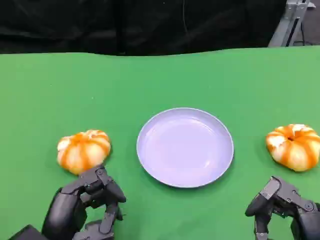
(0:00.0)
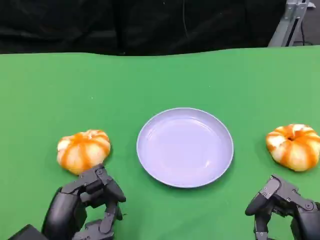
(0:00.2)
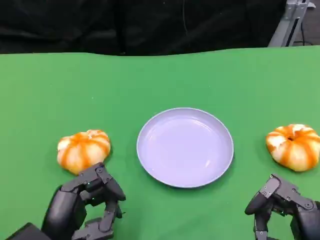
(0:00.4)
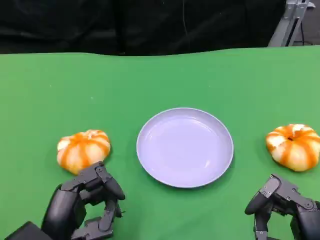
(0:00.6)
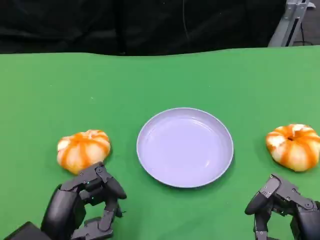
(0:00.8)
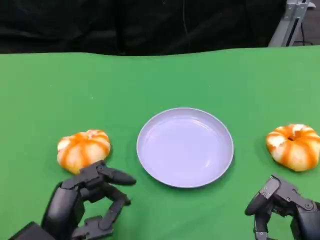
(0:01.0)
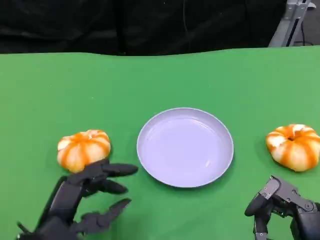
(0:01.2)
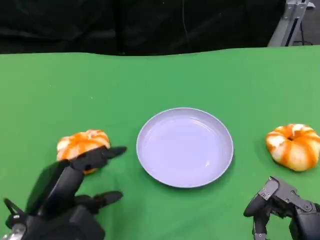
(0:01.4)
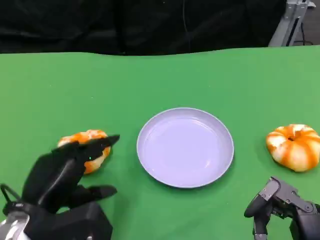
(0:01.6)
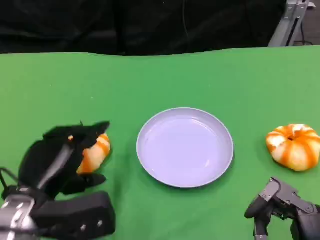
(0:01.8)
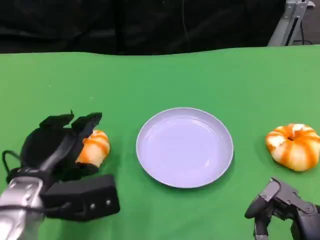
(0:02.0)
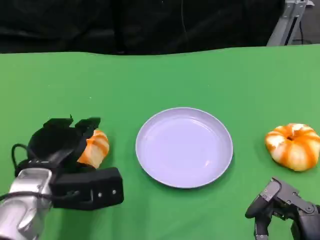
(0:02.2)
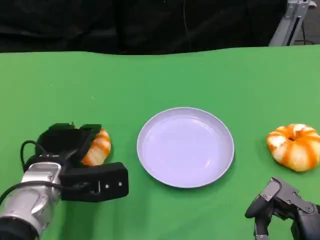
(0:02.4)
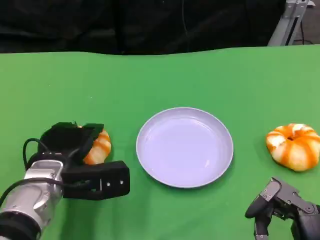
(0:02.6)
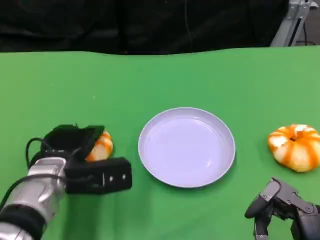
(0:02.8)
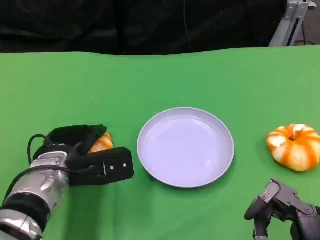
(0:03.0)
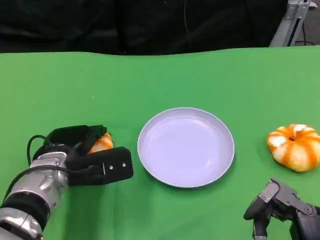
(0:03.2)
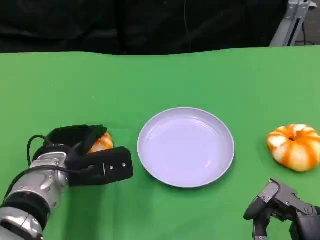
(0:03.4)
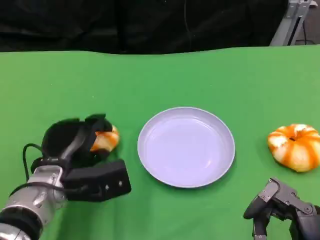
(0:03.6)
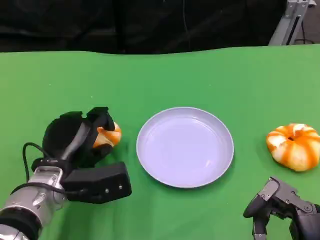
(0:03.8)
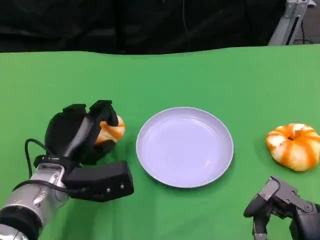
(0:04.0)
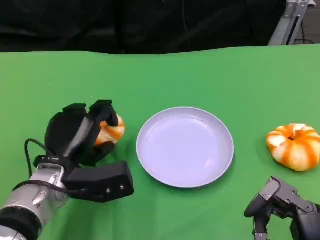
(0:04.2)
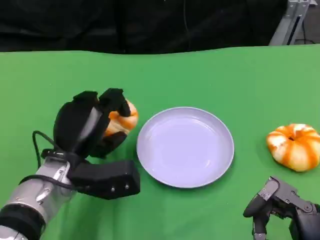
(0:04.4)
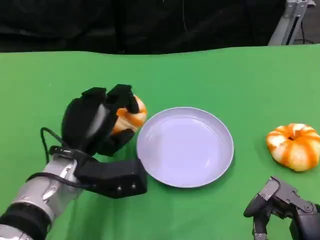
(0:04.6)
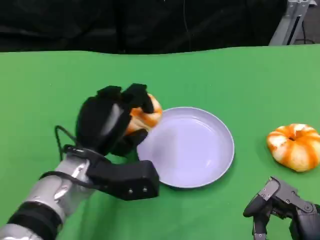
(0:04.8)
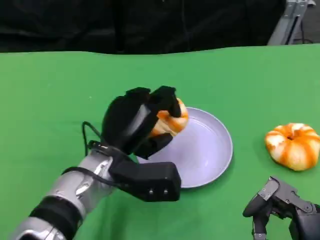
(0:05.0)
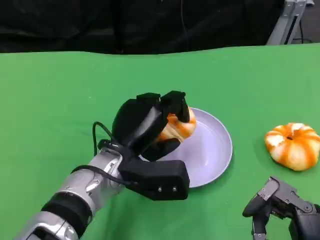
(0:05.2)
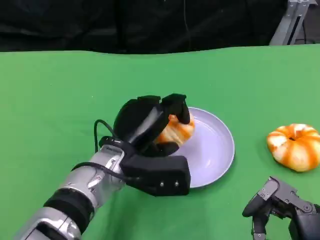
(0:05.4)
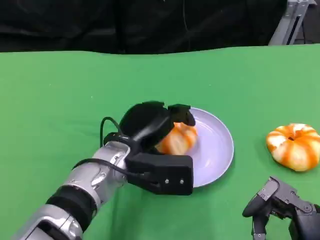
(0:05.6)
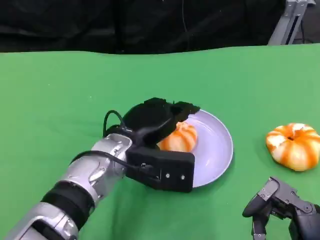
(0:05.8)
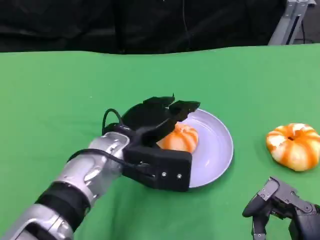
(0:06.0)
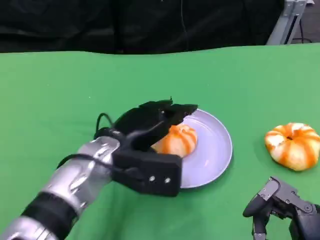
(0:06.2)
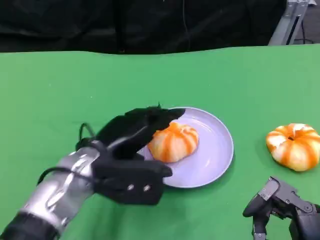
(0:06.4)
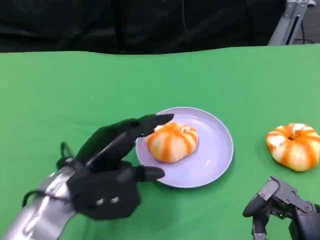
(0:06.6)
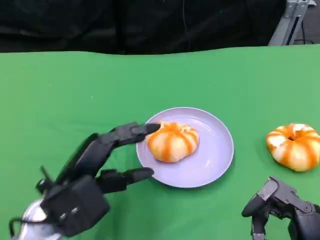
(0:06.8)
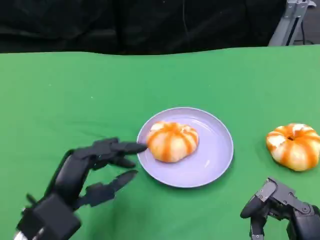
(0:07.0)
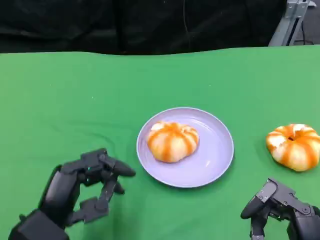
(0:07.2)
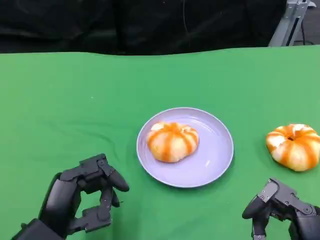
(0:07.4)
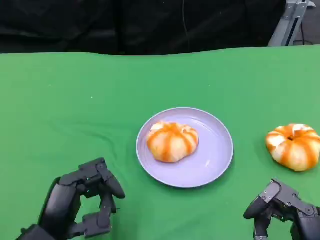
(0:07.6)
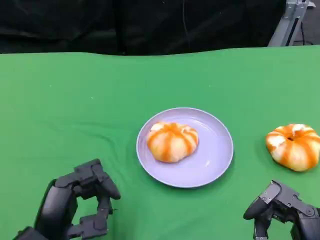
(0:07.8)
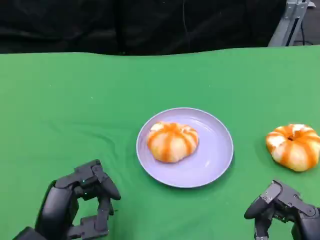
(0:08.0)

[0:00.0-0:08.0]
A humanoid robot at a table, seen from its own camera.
Task of the whole recording: Grasp the bread from the table and place it into the plate.
0:00.0 to 0:01.6: The left hand ends up some 5 cm from where it was.
0:01.6 to 0:03.2: The left hand moves forward, some 10 cm.
0:03.2 to 0:04.8: The left hand heads to the right, covering roughly 5 cm.
0:06.4 to 0:08.0: The left hand shifts approximately 15 cm backward, to the left and downward.

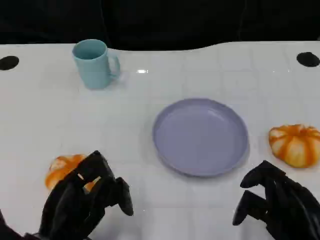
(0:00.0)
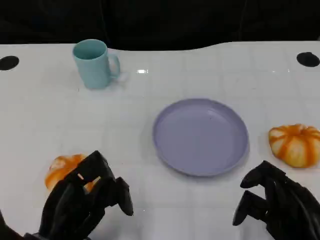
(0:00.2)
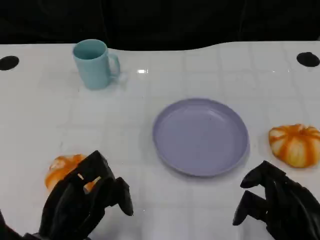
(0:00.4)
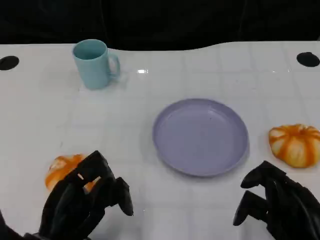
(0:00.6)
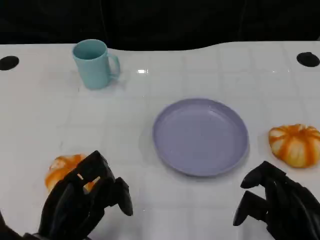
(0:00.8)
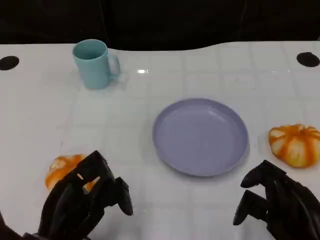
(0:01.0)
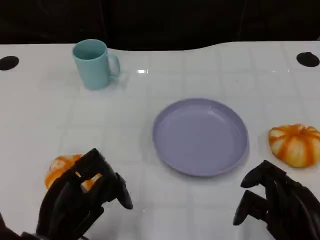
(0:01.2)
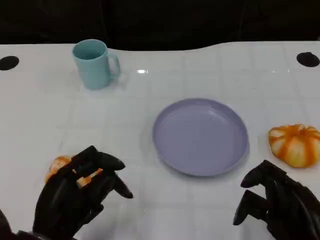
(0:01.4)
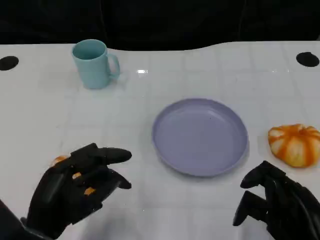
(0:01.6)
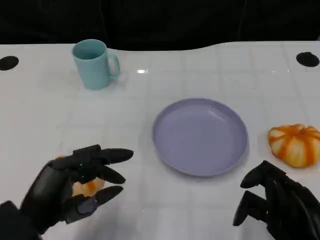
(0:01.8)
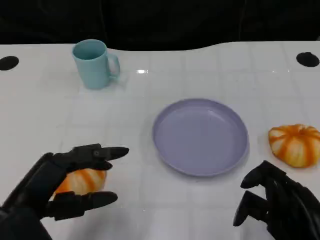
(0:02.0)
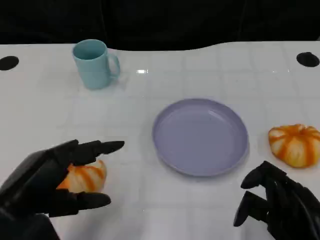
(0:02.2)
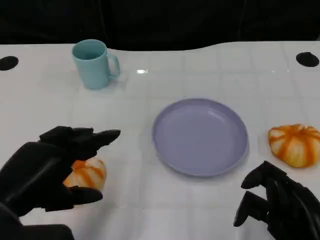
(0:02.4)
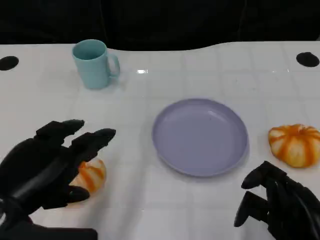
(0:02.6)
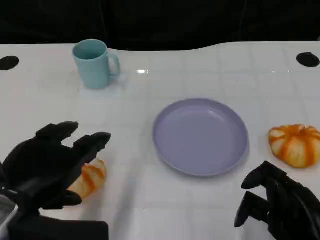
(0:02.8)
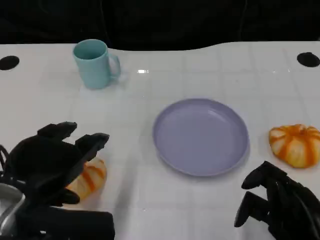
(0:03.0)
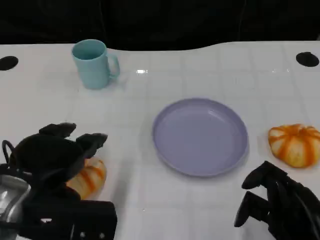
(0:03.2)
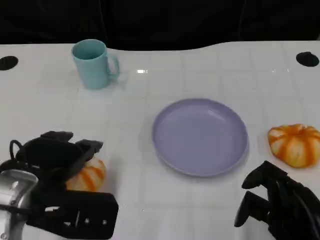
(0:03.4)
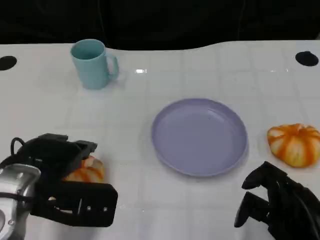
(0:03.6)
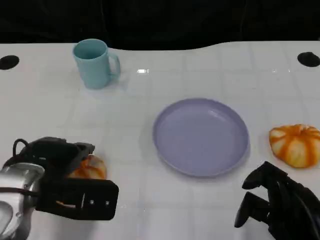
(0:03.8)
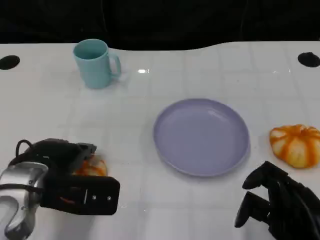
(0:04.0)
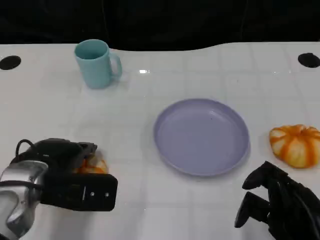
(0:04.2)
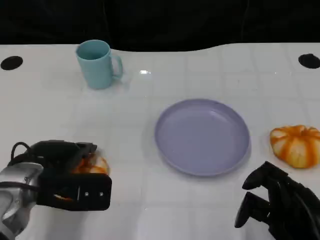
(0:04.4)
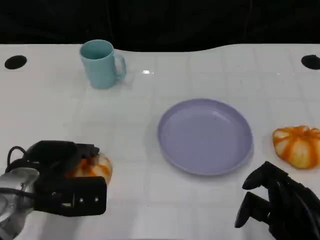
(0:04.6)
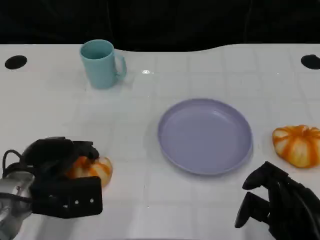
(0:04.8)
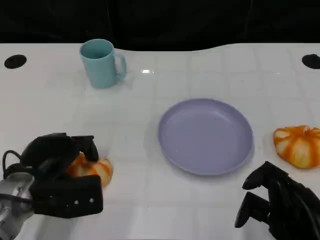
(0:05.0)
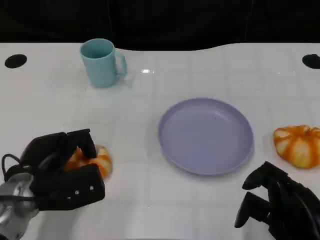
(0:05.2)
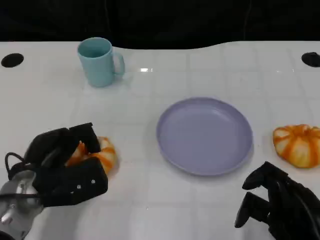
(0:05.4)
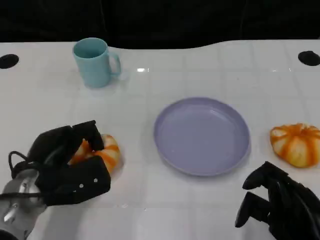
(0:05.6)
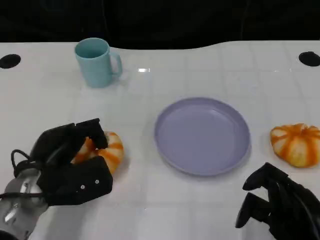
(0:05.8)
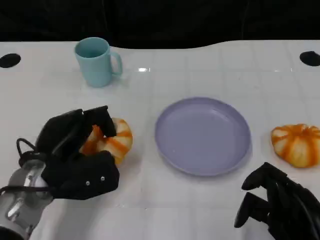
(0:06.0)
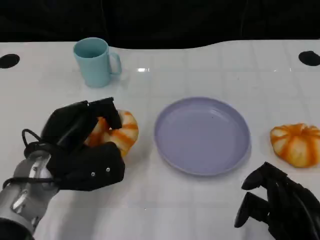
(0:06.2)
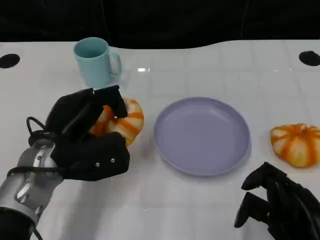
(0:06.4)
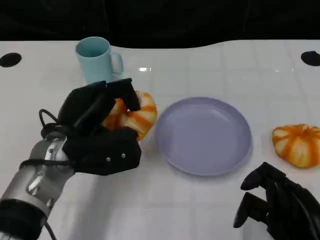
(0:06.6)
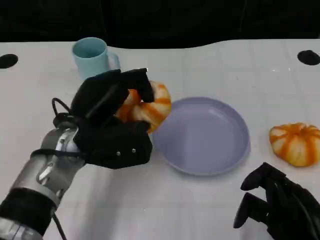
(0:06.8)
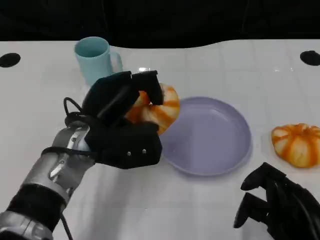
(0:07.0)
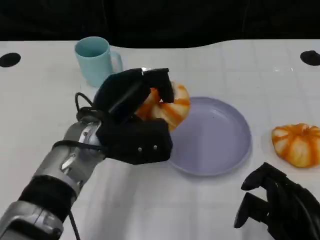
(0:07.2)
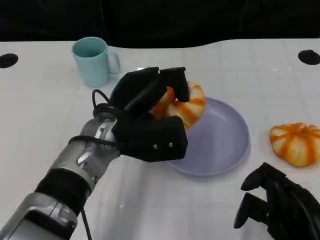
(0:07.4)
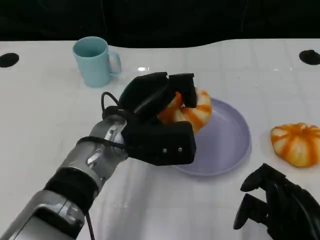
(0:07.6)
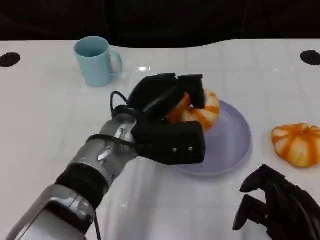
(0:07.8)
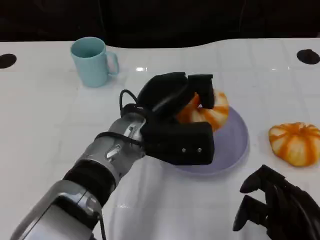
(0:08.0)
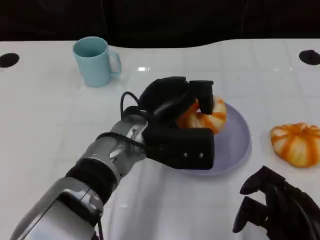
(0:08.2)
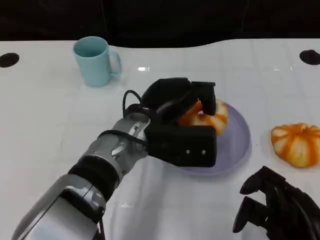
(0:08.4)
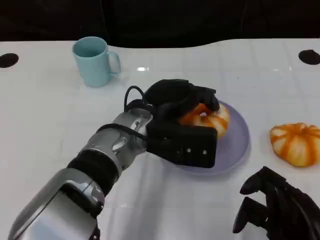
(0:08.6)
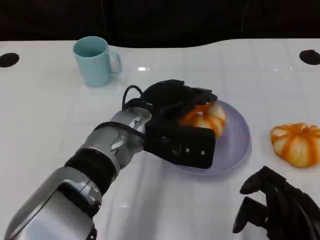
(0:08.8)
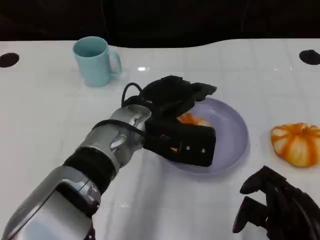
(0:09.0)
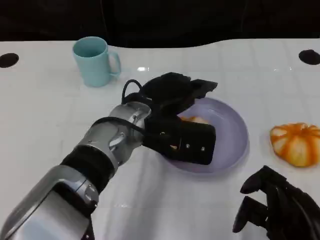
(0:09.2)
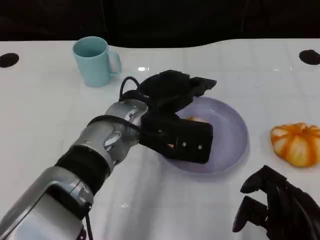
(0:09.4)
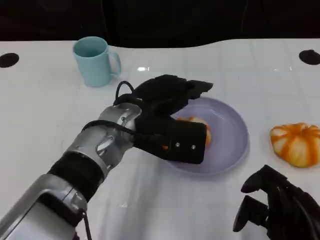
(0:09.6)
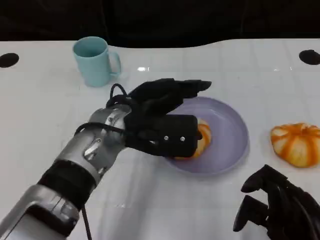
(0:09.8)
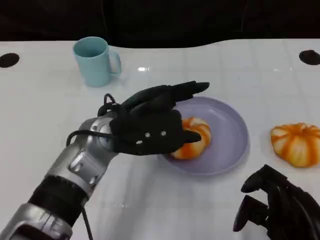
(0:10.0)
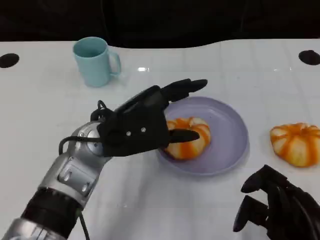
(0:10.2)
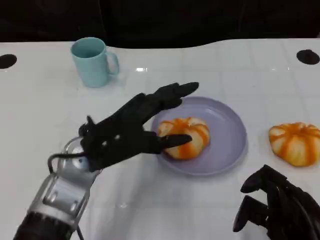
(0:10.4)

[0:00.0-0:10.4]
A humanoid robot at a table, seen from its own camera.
Task of the whole recording: Grasp the bread from the table and place it into the plate.
0:00.0 to 0:01.4: The hands move only a little.
0:01.4 to 0:03.0: The left hand moves upward, about 10 cm.
0:03.0 to 0:04.4: The left hand travels downward and forward by about 10 cm.
0:06.0 to 0:07.4: The left hand is displaced to the right by some 10 cm.
0:09.0 to 0:10.4: The left hand moves to the left, approximately 10 cm.

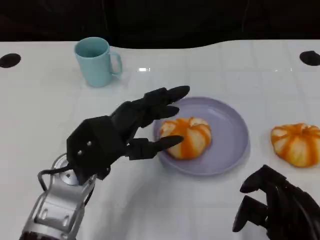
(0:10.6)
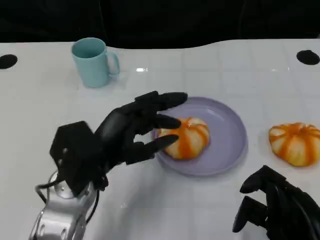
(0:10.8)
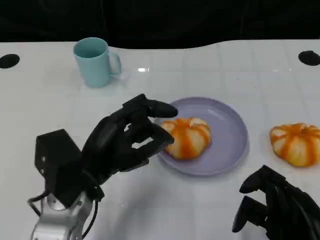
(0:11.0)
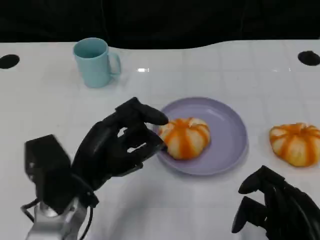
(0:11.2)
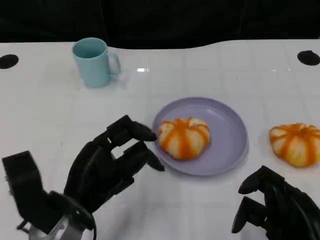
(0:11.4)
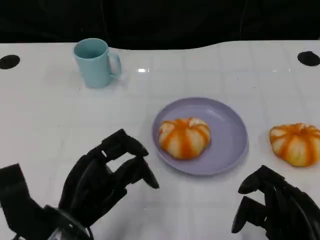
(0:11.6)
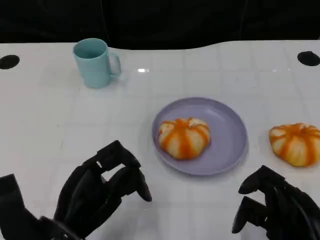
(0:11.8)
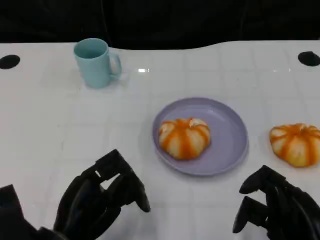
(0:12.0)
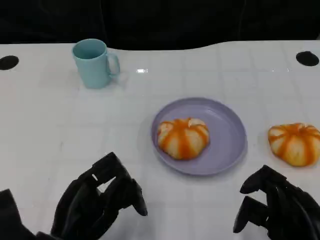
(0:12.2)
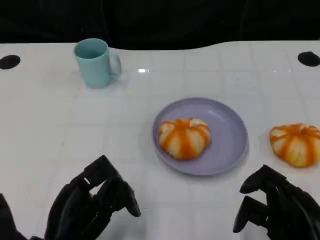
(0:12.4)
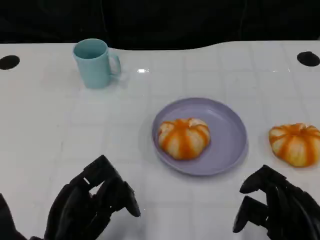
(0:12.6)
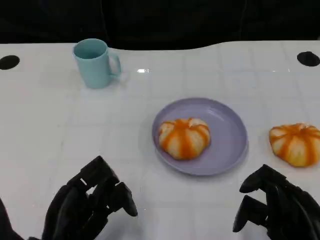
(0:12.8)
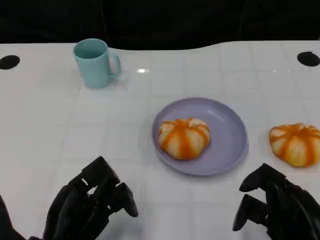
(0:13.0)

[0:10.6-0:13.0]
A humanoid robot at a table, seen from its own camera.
Task of the whole recording: Grasp the bread from the table and place it into the plate.
0:10.6 to 0:11.8: The left hand travels backward and downward by about 10 cm.
0:11.8 to 0:13.0: The hands move only a little.
